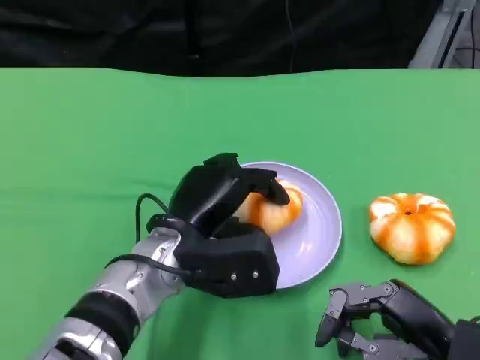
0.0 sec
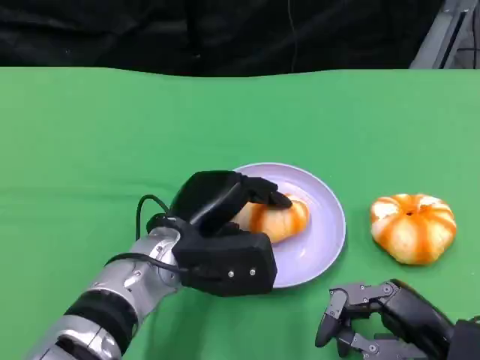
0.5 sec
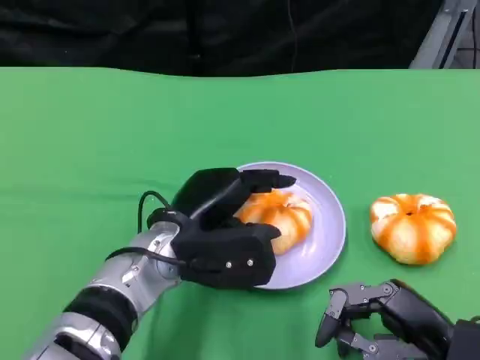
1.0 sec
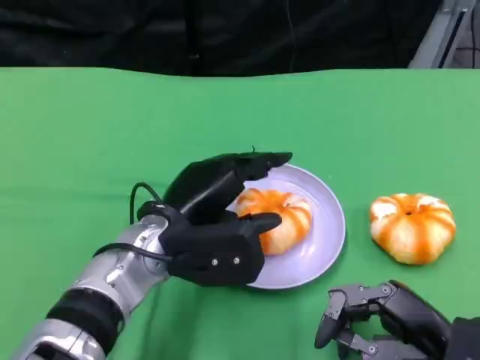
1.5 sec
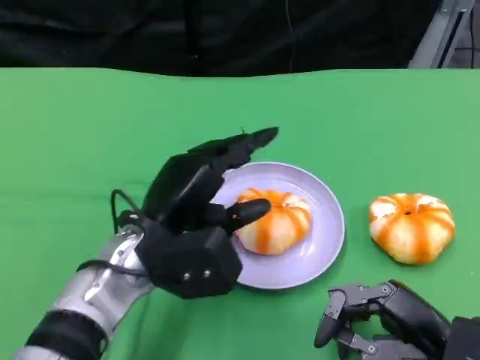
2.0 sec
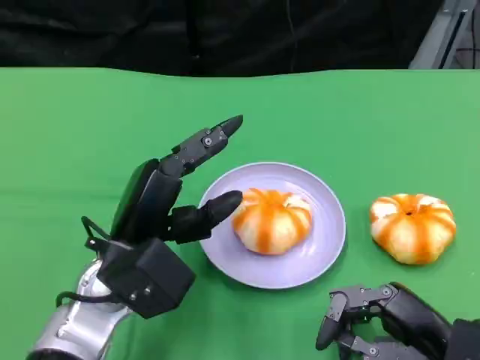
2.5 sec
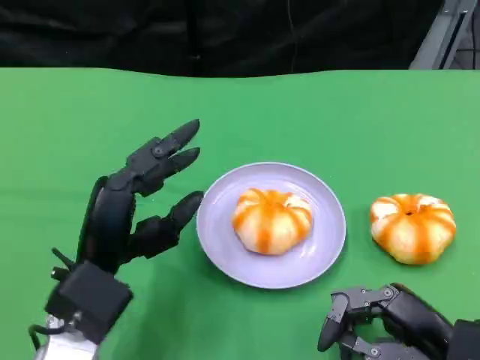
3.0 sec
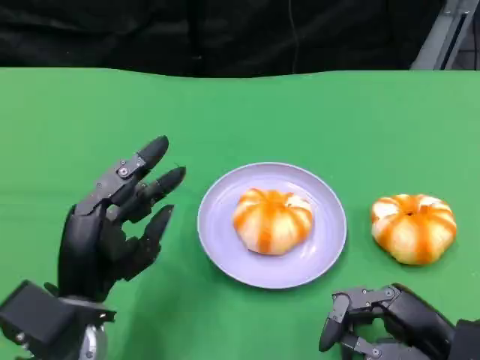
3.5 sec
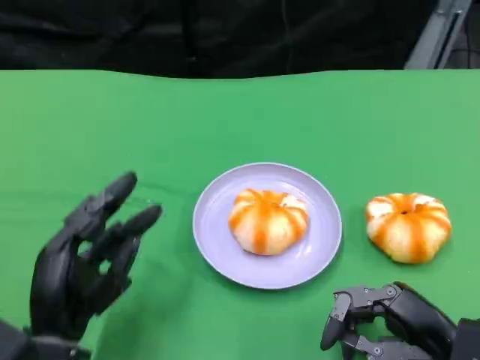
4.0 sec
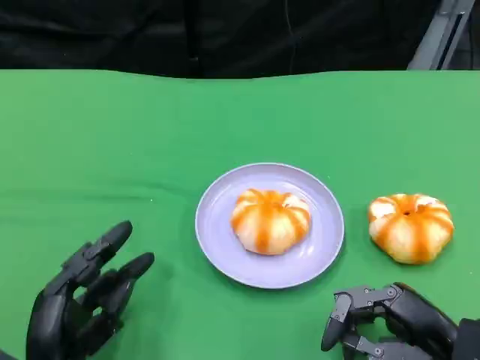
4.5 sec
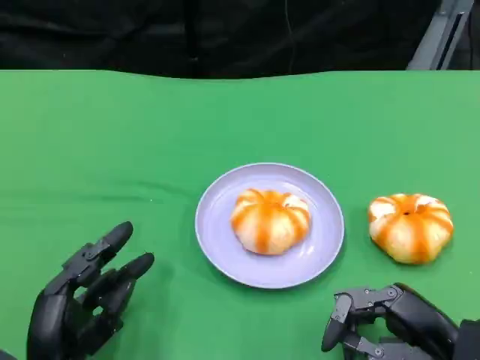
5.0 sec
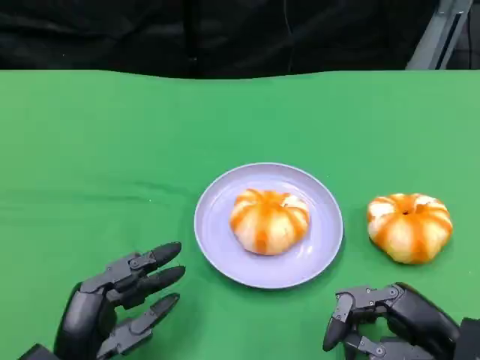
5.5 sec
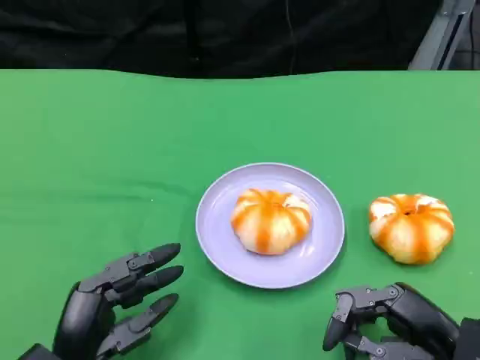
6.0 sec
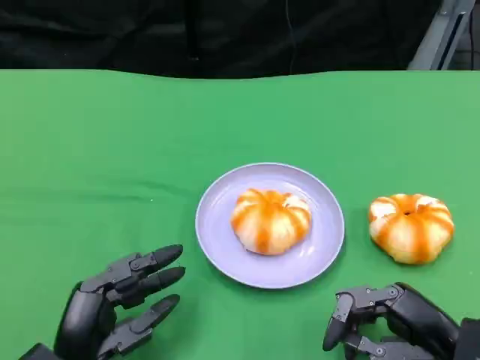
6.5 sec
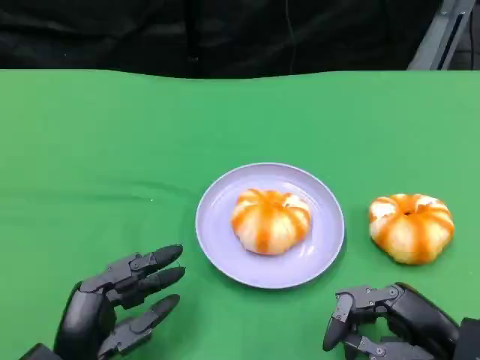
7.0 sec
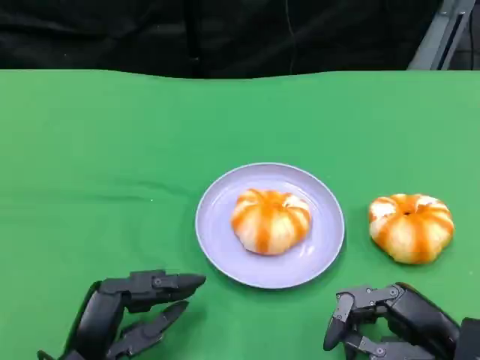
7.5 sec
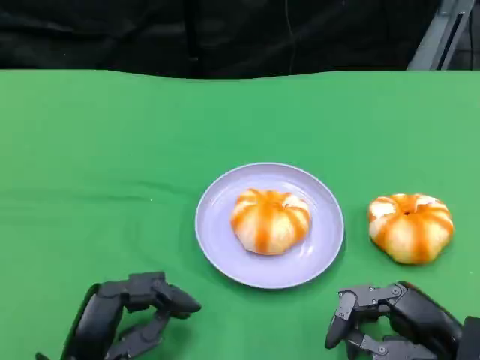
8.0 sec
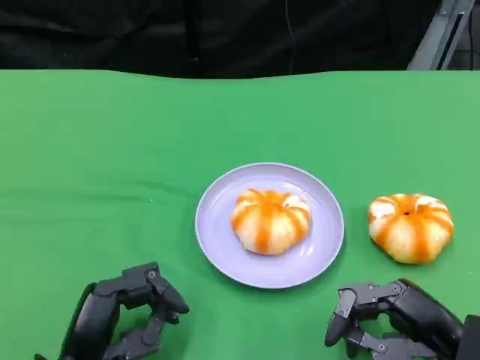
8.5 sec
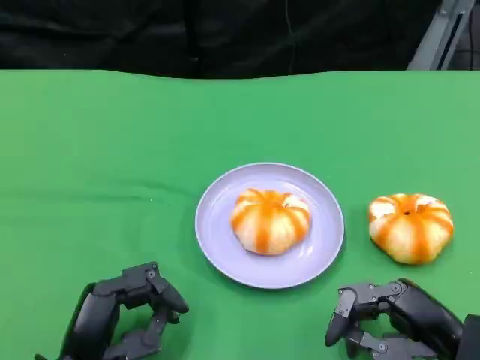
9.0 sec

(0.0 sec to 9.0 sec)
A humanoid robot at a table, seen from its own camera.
Task of the whole recording: Grasp the bread from the table and place it into the plate.
0.0 sec - 2.0 sec: The hands make only small movements.
2.0 sec - 4.5 sec: The left hand heads backward, to the left and downward, covering approximately 15 cm.
4.5 sec - 7.0 sec: The hands make only small movements.
7.0 sec - 9.0 sec: The hands move only a little.

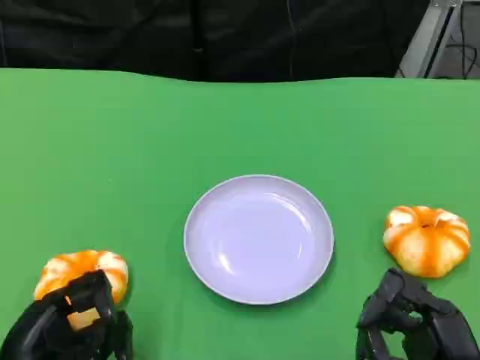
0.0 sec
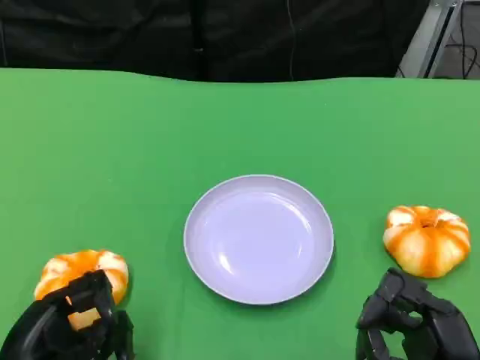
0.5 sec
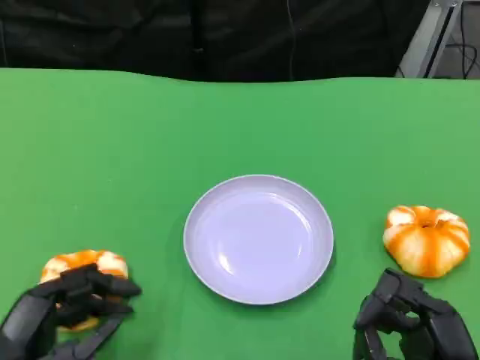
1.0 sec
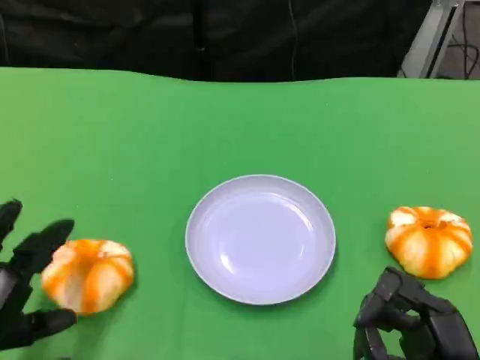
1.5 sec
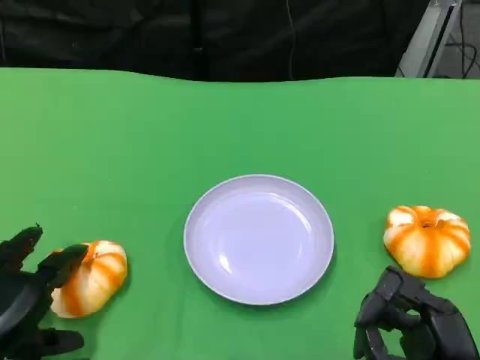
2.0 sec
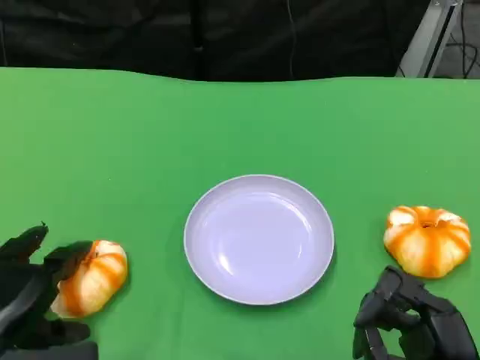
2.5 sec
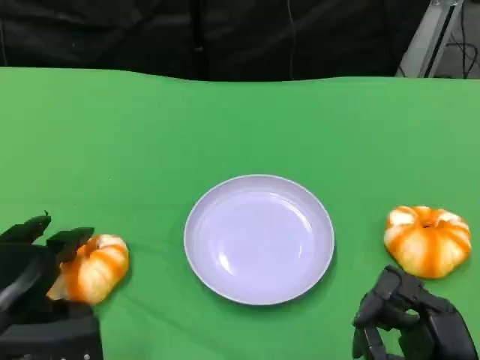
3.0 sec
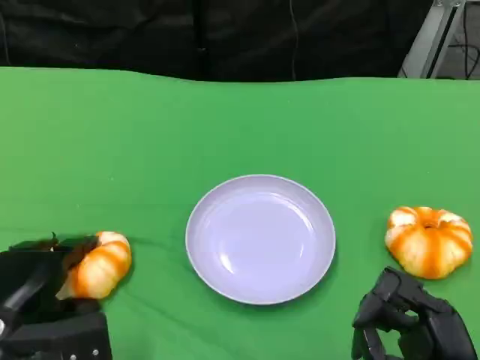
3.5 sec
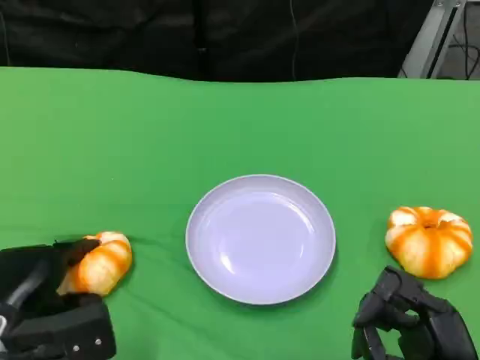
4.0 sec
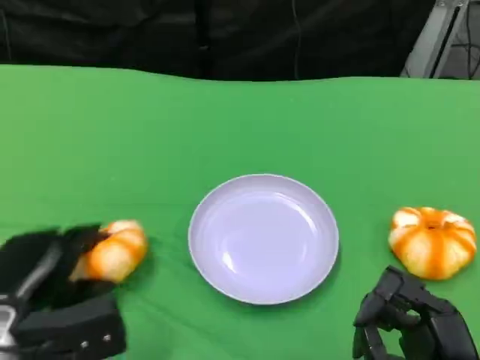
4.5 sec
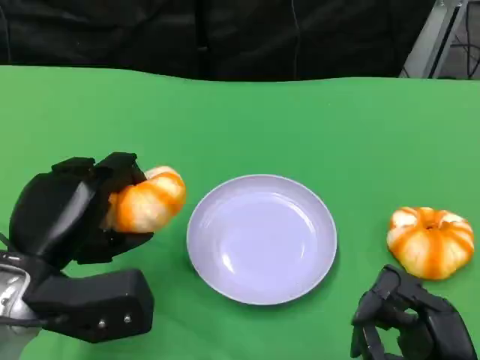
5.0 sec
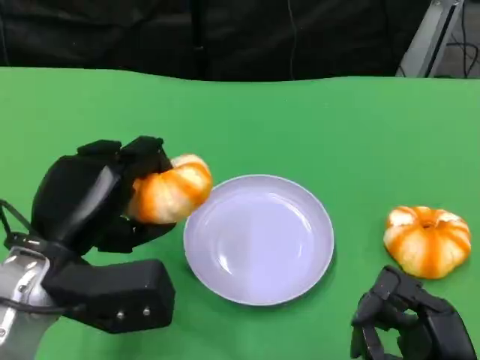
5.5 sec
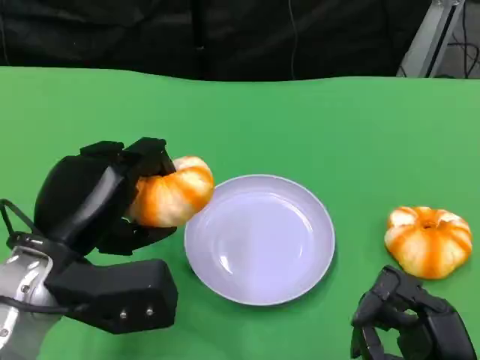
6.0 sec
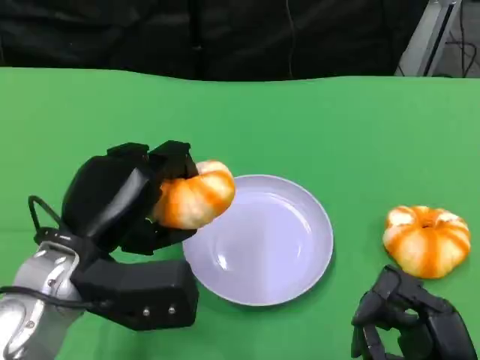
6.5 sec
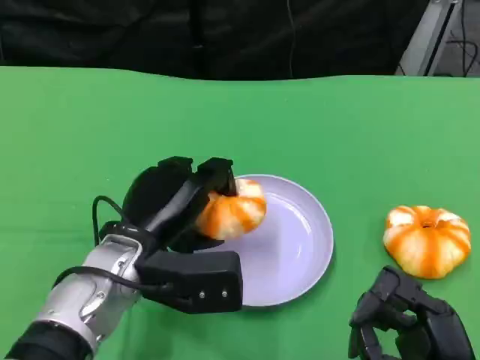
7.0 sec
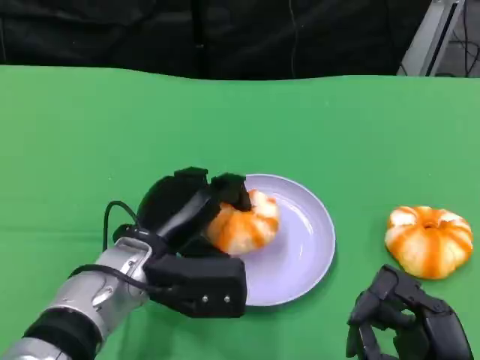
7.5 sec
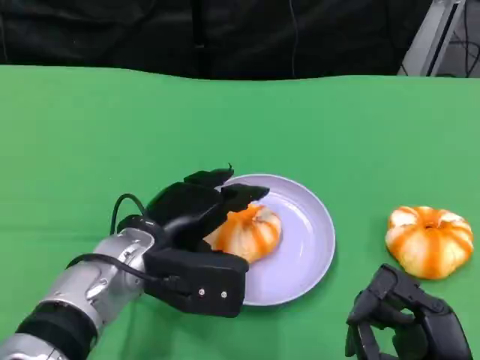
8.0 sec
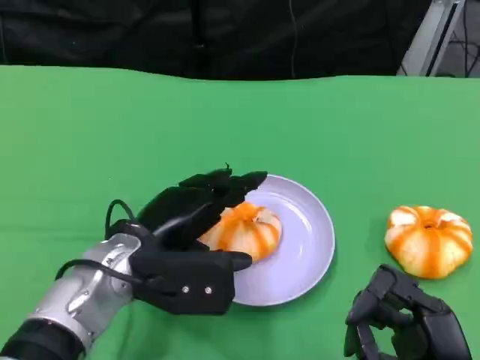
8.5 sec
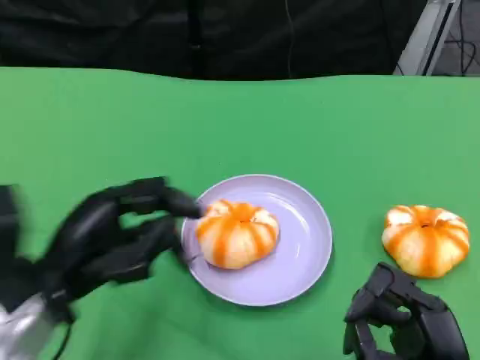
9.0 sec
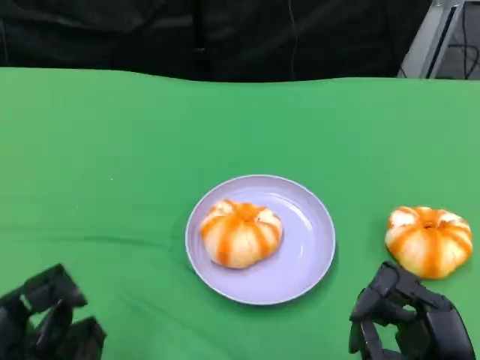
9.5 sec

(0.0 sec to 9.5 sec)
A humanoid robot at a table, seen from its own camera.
Task of the whole recording: Grasp the bread from the table and place it into the plate.
2.0 sec - 4.0 sec: The left hand ends up roughly 5 cm from where it was.
4.0 sec - 5.5 sec: The left hand travels upward and to the right by approximately 10 cm.
5.5 sec - 7.5 sec: The left hand travels to the right and downward by approximately 10 cm.
7.5 sec - 9.5 sec: The left hand heads to the left and backward, covering approximately 25 cm.

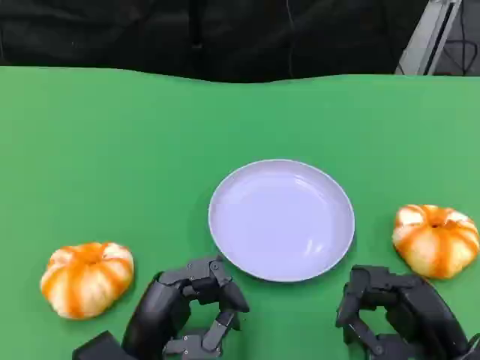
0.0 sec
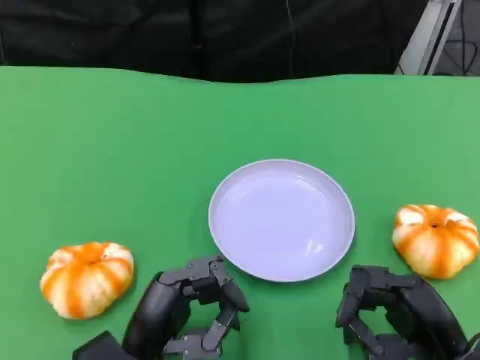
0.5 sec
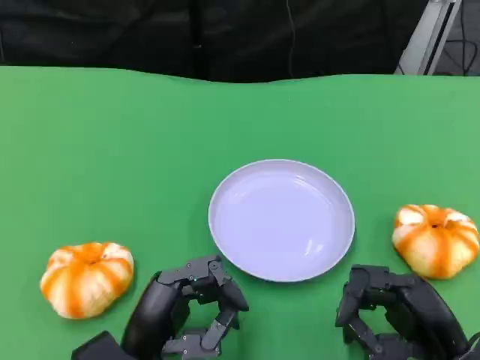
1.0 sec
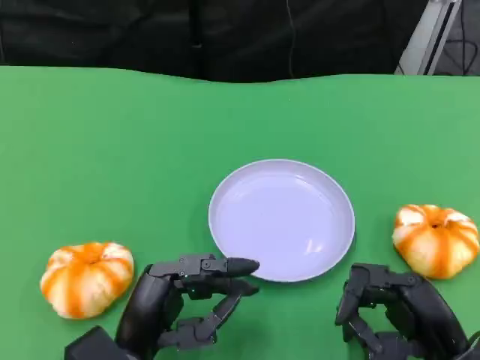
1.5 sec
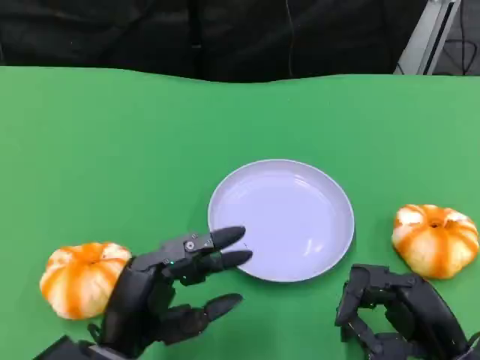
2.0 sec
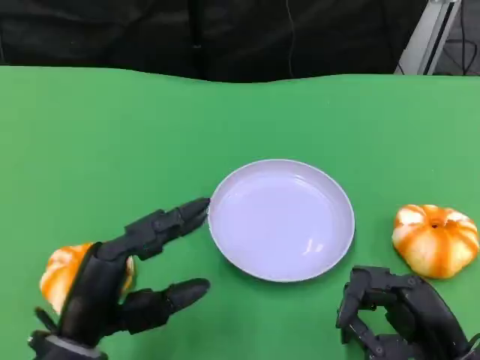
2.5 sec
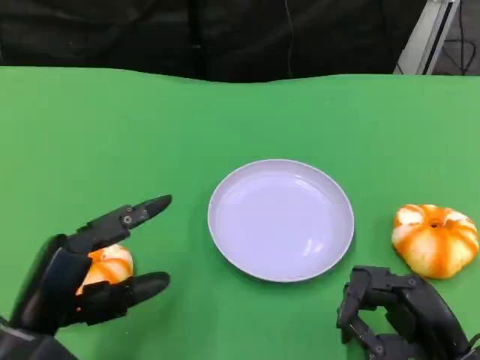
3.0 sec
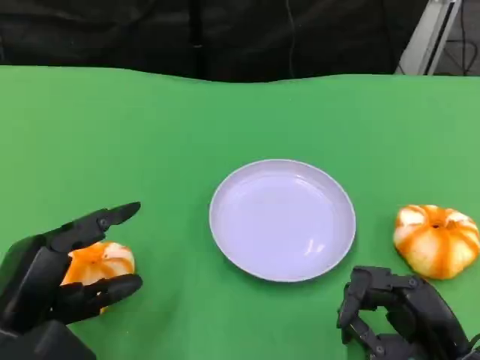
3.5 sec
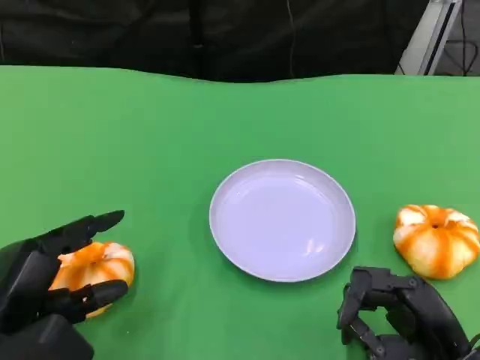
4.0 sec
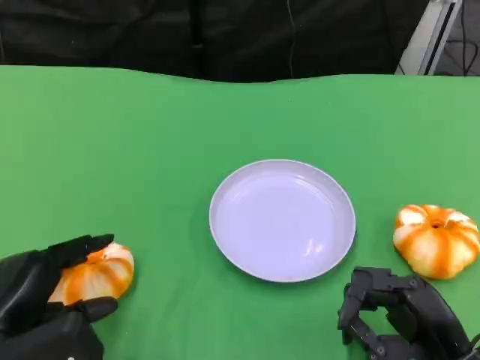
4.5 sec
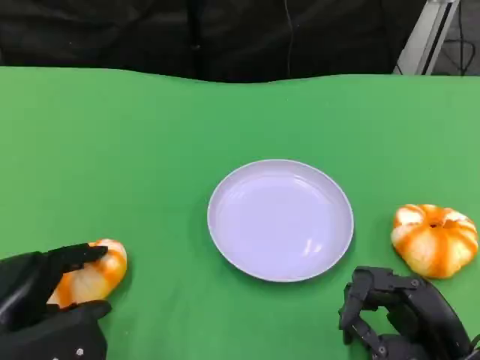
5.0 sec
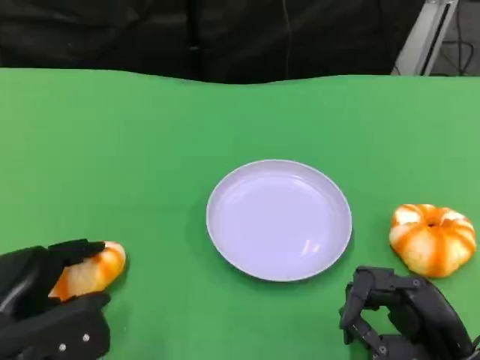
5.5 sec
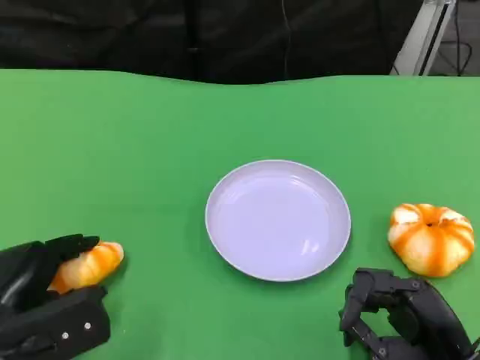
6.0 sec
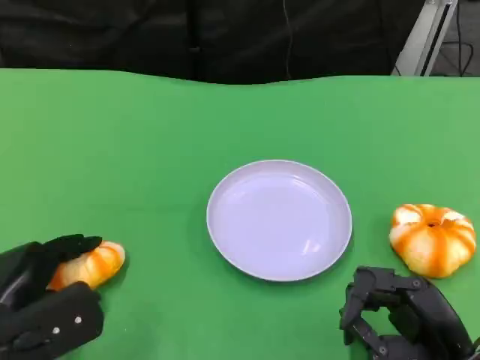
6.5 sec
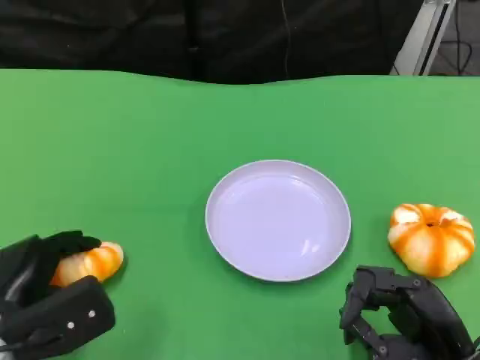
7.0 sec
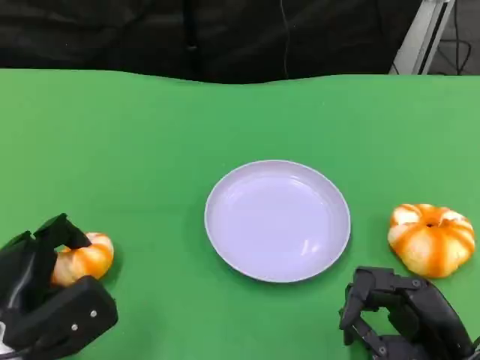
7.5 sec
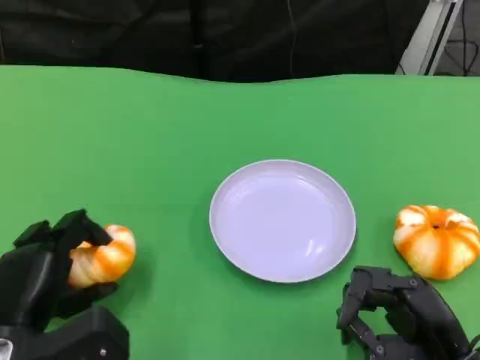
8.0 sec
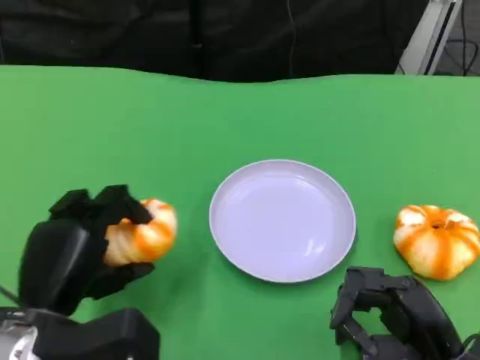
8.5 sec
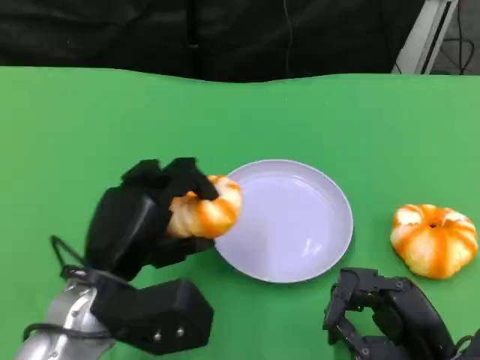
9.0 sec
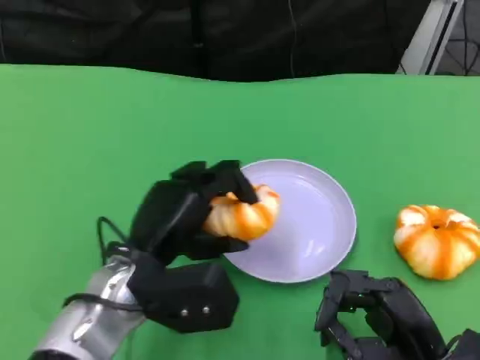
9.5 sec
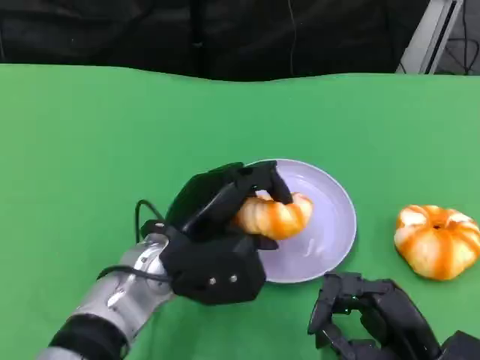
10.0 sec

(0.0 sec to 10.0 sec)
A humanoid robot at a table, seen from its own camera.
Task of the whole recording: Grasp the bread from the table and place it into the plate.
0.0 sec - 2.0 sec: There are only small adjustments of the hands.
2.0 sec - 4.0 sec: The left hand shifts roughly 10 cm to the left.
8.0 sec - 10.0 sec: The left hand heads to the right and forward, covering roughly 15 cm.
